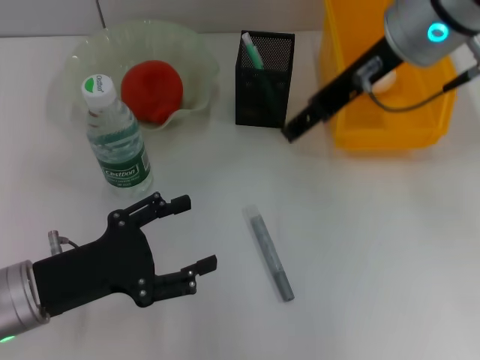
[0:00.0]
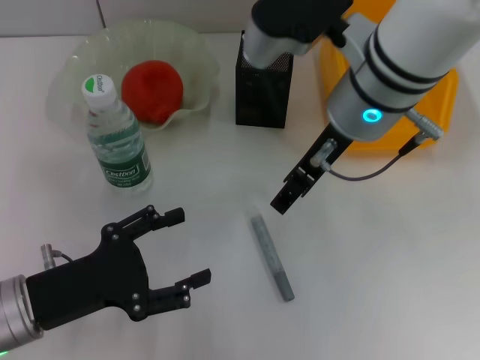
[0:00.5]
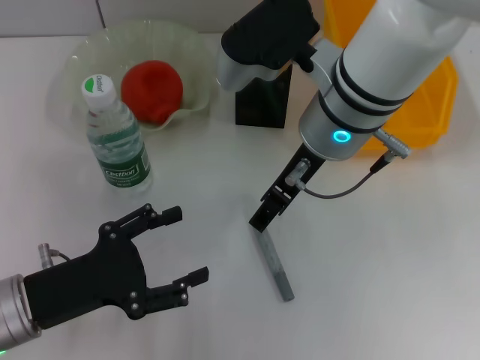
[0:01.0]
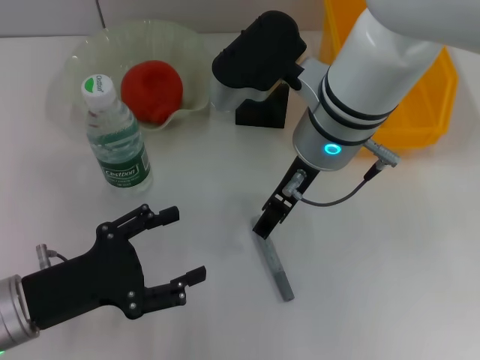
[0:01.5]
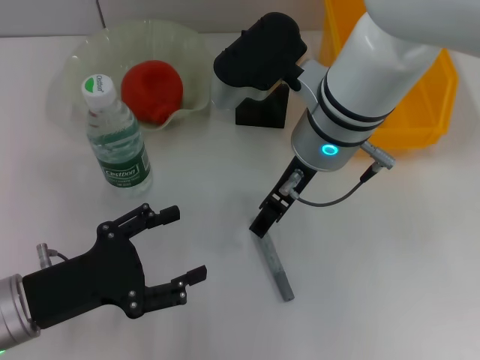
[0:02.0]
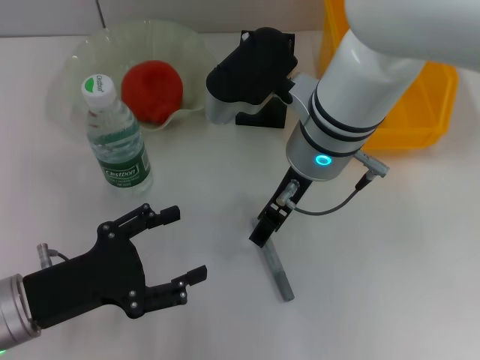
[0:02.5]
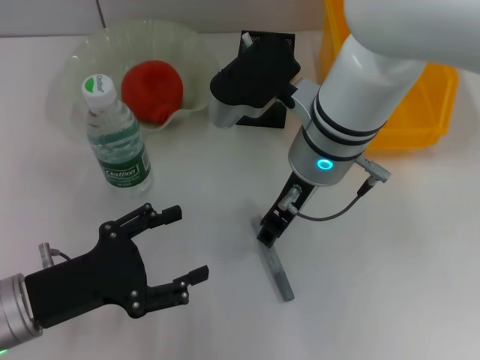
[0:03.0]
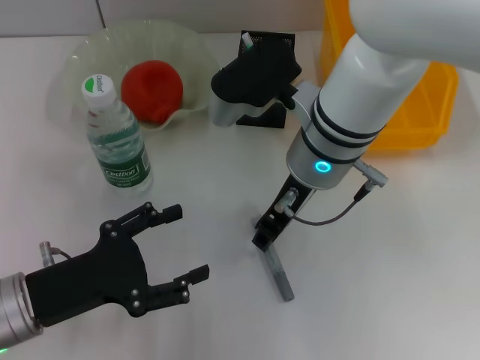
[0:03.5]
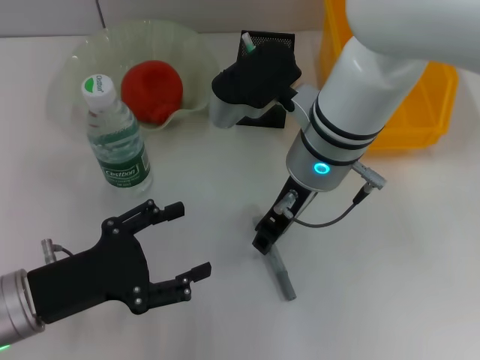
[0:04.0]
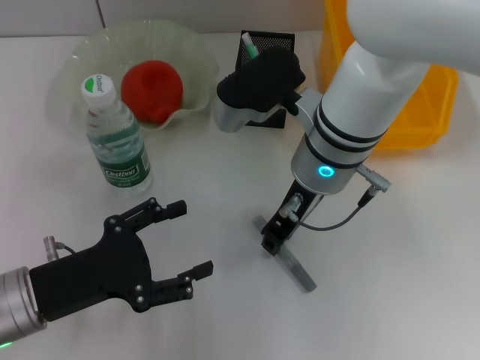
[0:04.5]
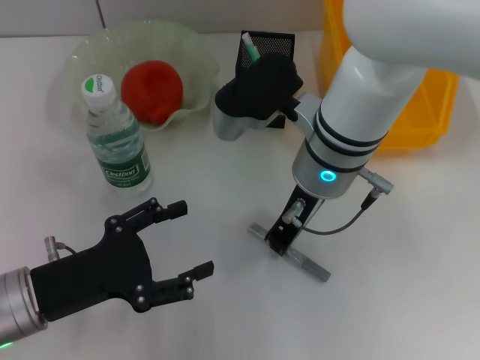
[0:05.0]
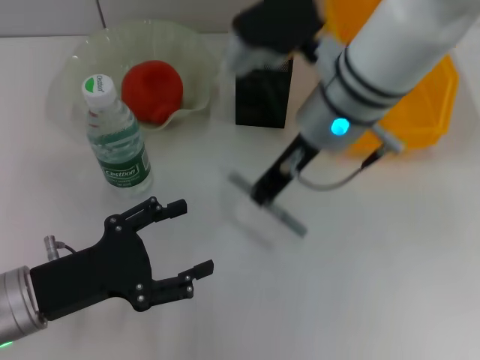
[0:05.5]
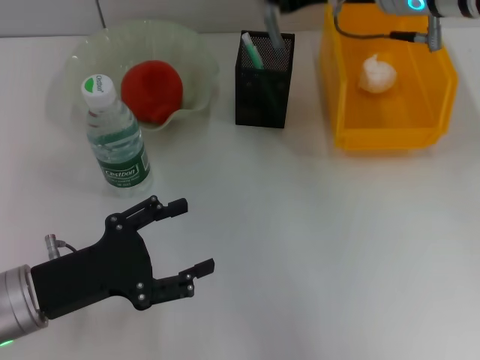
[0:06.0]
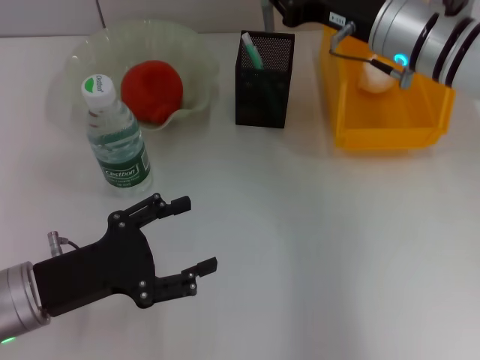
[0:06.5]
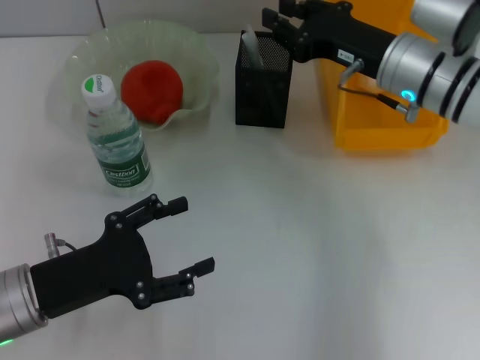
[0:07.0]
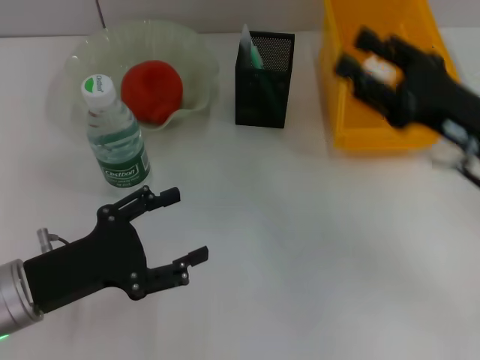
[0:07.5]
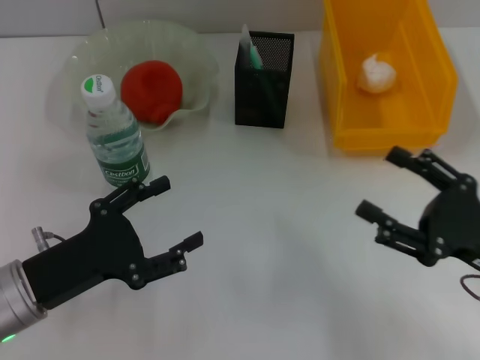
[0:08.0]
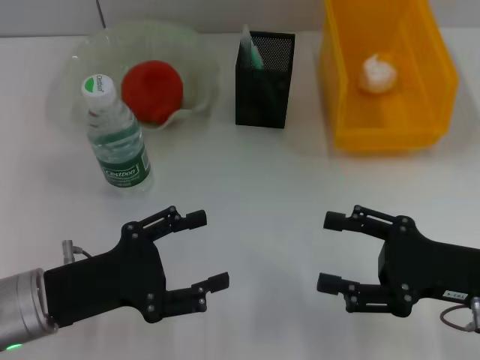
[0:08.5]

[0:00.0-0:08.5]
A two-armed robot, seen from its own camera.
Step, 0:00.0 to 0:04.5: Grab the gray glue with the right hand.
Step, 0:05.0 to 0:07.0: Place the gray glue into the pen holder with the right hand.
0:00.0 to 0:02.0: The right gripper travels downward and to the left by about 10 cm.
0:02.0 to 0:04.0: The right gripper closes its fingers.
0:04.0 to 0:06.5: The right gripper travels to the right and forward by approximately 10 cm, and closes its fingers.
0:06.5 to 0:08.5: The right gripper goes approximately 25 cm backward, to the right and downward, and opens its fingers.

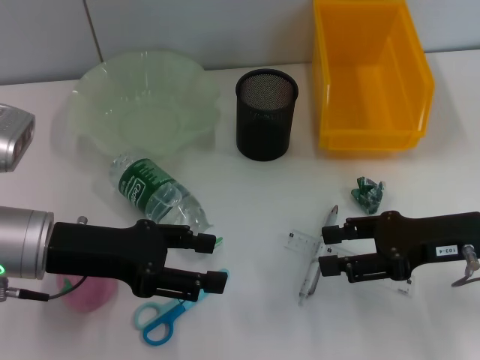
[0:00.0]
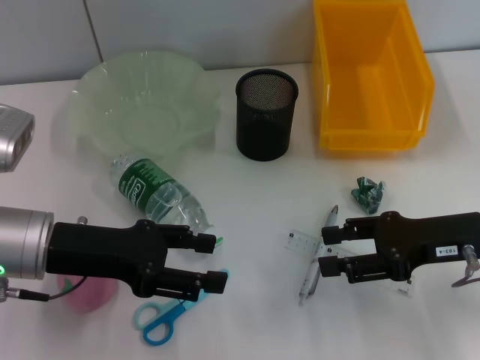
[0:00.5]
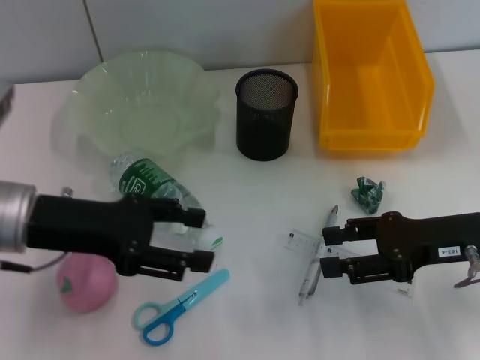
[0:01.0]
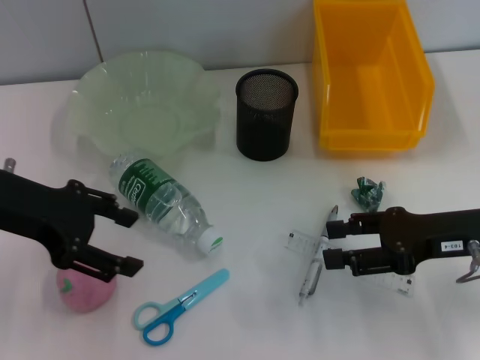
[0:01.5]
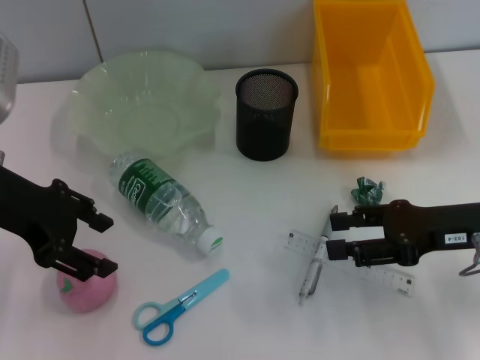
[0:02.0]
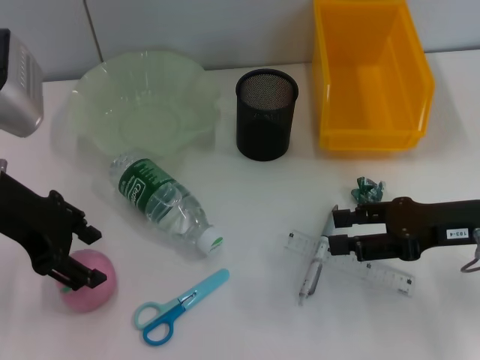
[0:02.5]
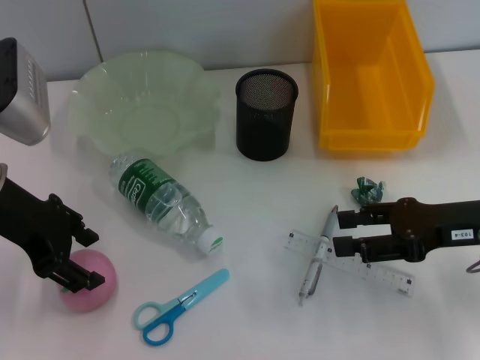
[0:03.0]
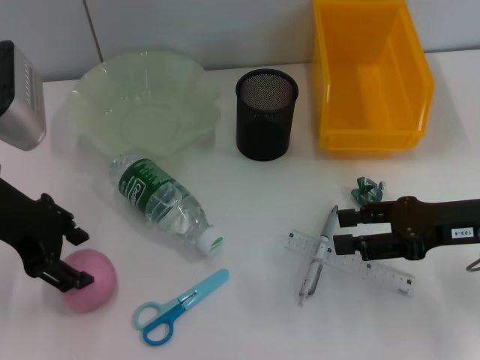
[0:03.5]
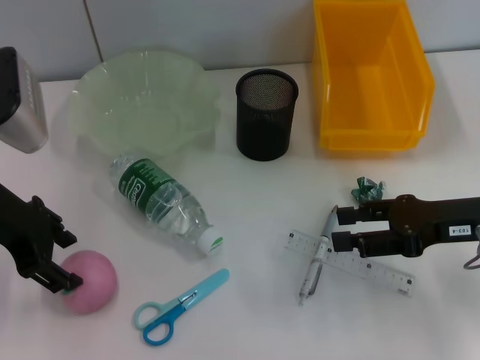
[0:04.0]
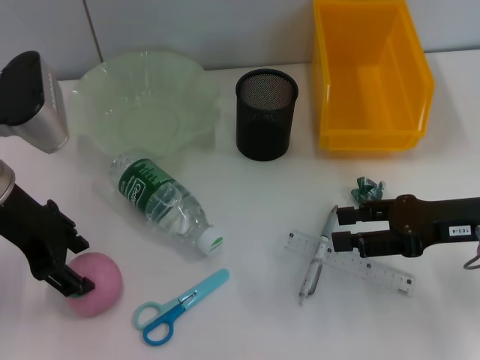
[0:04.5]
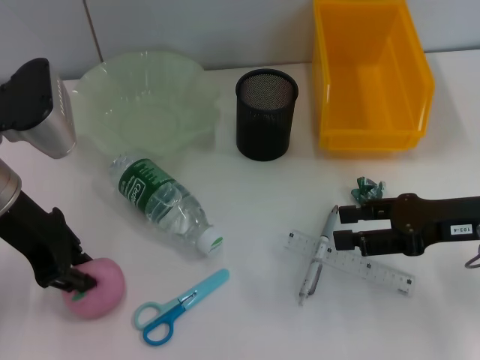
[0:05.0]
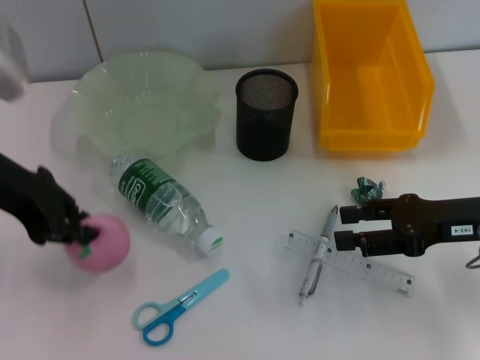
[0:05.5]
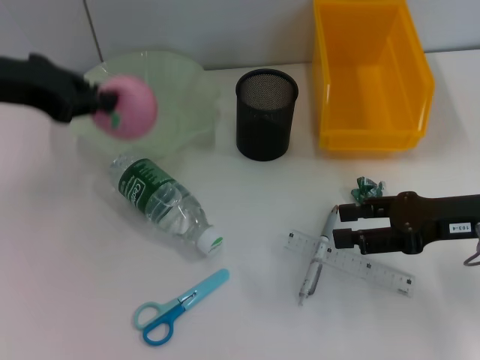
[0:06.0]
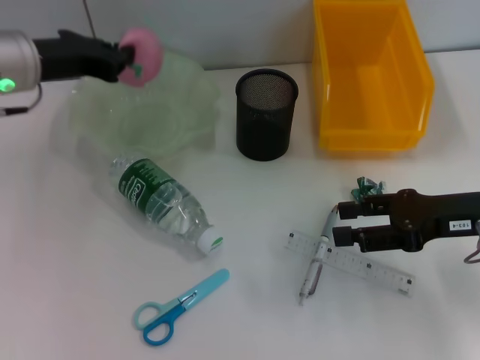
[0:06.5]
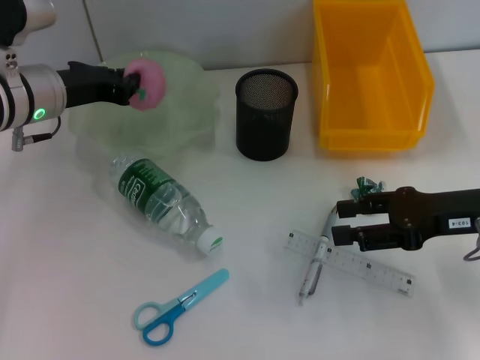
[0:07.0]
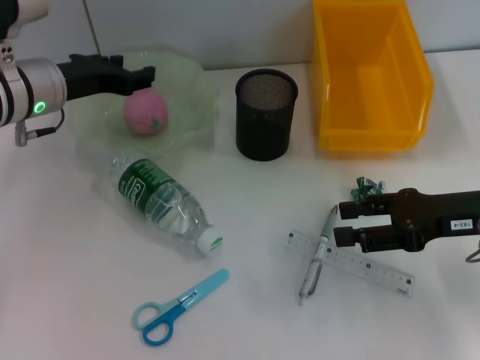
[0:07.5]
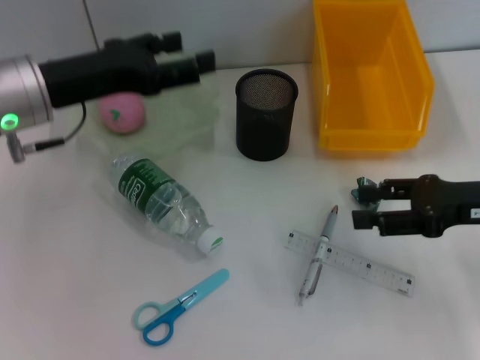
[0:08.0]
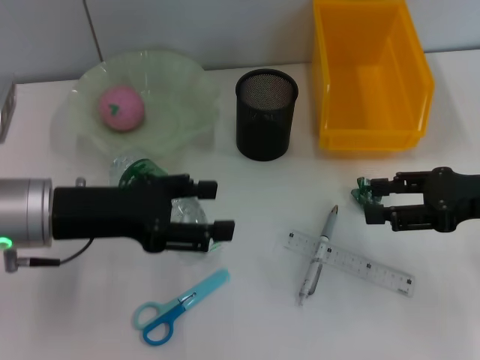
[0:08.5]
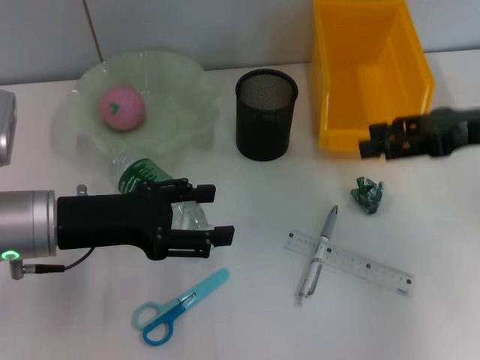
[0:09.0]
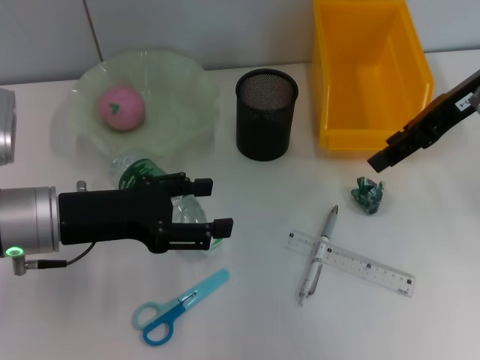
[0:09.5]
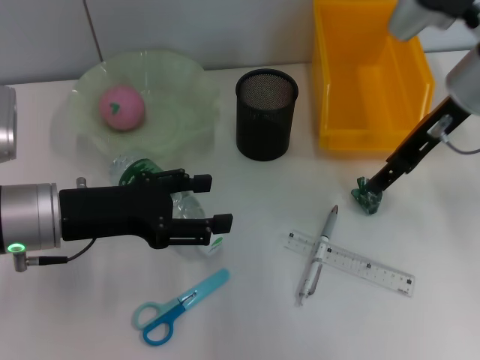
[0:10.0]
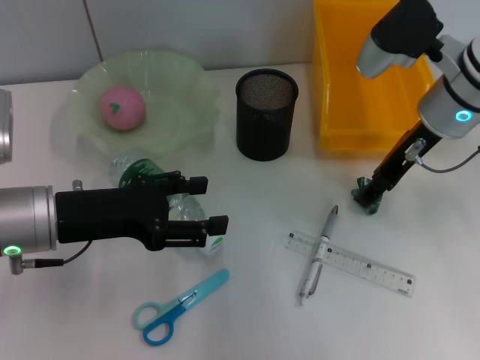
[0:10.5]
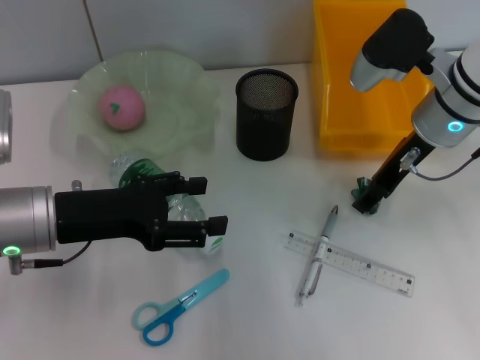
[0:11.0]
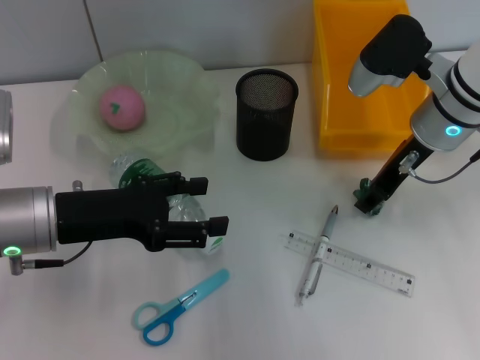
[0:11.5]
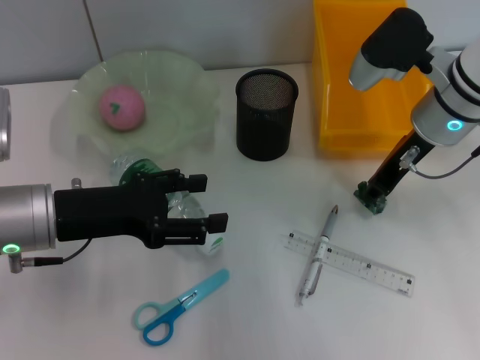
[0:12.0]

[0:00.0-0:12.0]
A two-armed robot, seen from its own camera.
Step, 0:00.0 to 0:05.0: Grab the peach with the left hand.
Step, 0:05.5 to 0:07.0: Place the peach into the fruit bowl with the left hand.
Step, 0:07.5 to 0:11.5: Grab the plastic with the right hand.
0:00.0 to 0:02.0: The left gripper travels upward by about 10 cm.
0:02.0 to 0:04.0: The grippers stay close to where they were, moving slightly.
0:04.0 to 0:06.0: The left gripper heads upward, covering roughly 5 cm, and closes its fingers.
0:06.0 to 0:08.0: The left gripper heads downward, covering about 5 cm, and opens up.
0:08.0 to 0:10.0: The right gripper moves forward, to the left and upward, about 15 cm. Meanwhile the left gripper shifts roughly 10 cm downward and backward.
0:10.0 to 0:12.0: The right gripper closes.

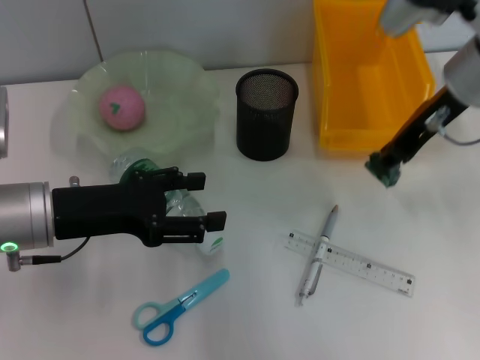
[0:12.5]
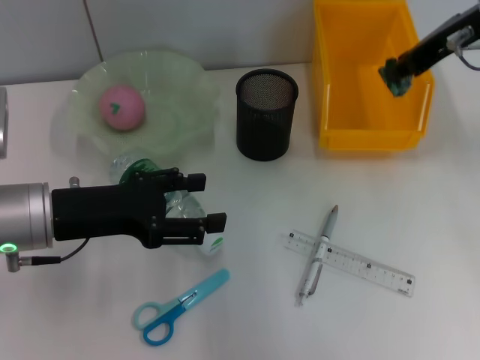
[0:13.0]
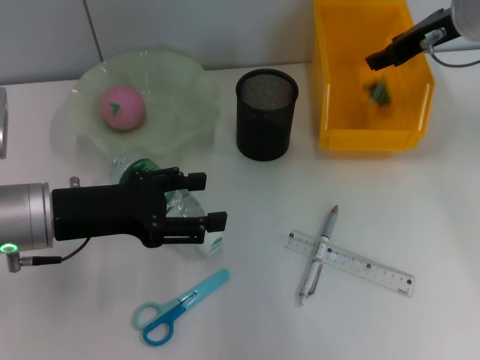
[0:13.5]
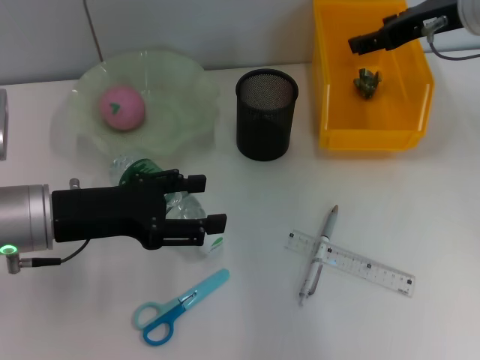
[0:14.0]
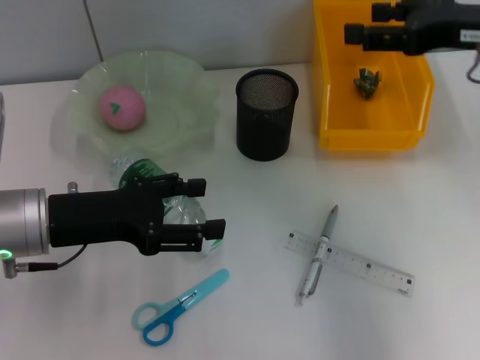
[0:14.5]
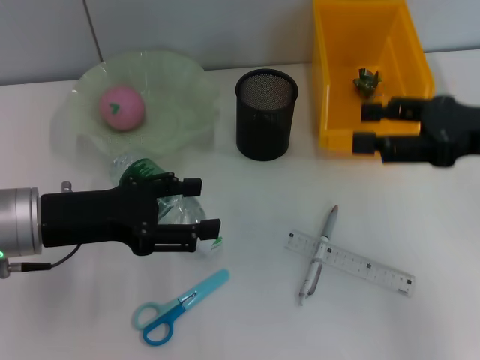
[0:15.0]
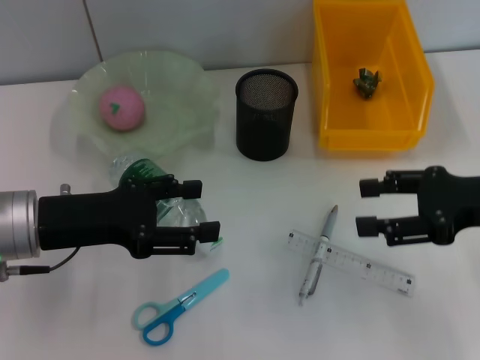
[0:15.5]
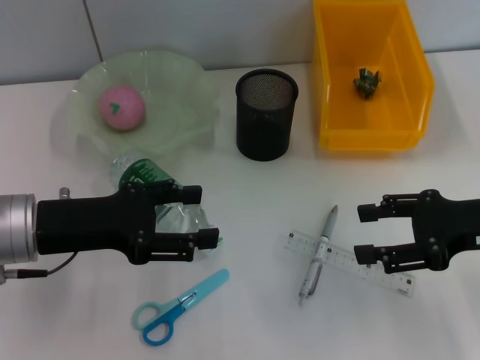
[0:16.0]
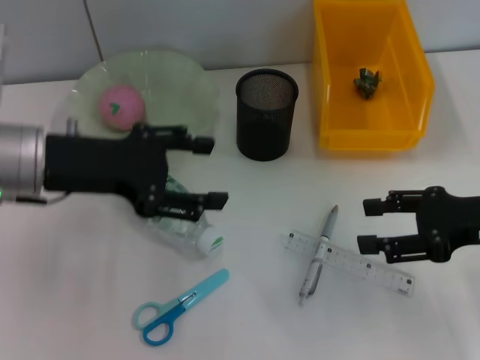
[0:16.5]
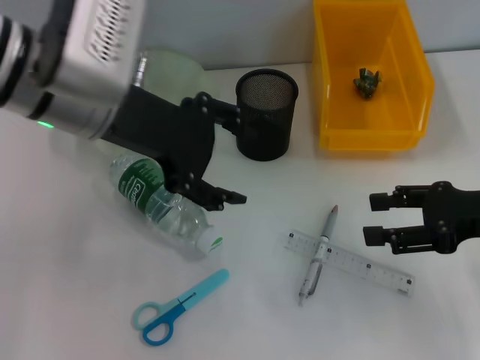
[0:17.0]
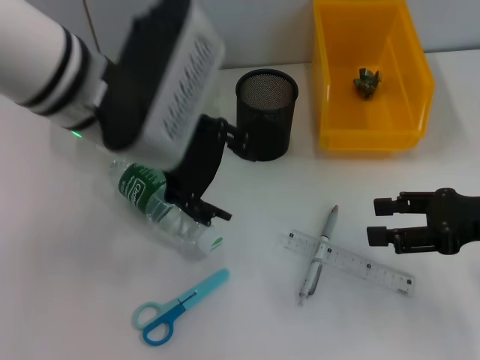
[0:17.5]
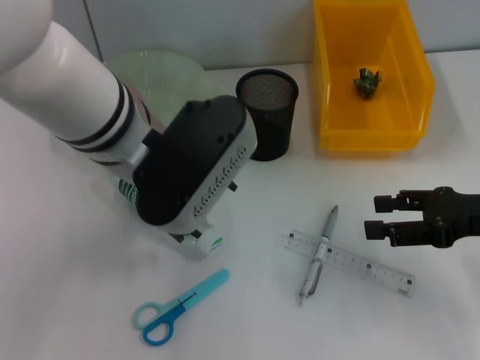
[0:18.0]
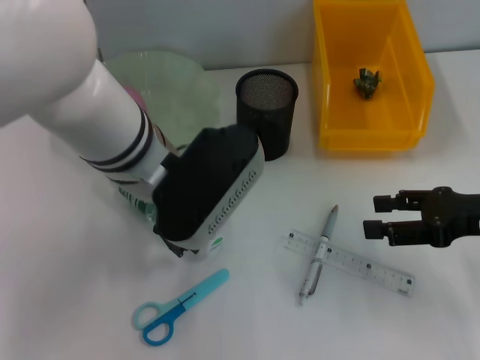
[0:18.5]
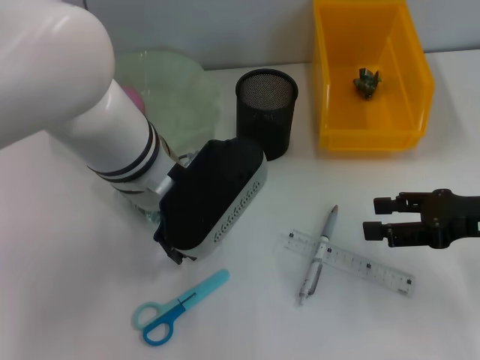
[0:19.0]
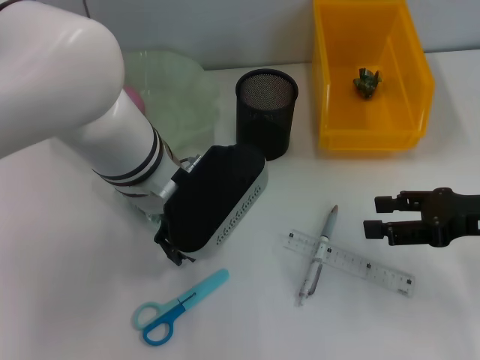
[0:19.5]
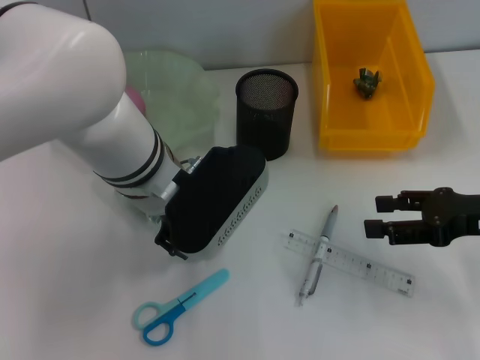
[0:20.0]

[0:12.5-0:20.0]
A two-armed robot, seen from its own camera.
Step, 0:12.5 to 0:13.5: Place the plastic into the trash can with the right hand.
0:12.5 to 0:14.5: The right gripper shifts about 5 cm to the right, and opens its fingers.
0:14.5 to 0:16.5: The left gripper shifts about 5 cm upward. Meanwhile the right gripper moves downward and backward, some 15 cm.
0:16.5 to 0:18.0: The left gripper is displaced to the right by approximately 10 cm.
0:18.0 to 0:20.0: The left gripper shifts approximately 5 cm downward.
